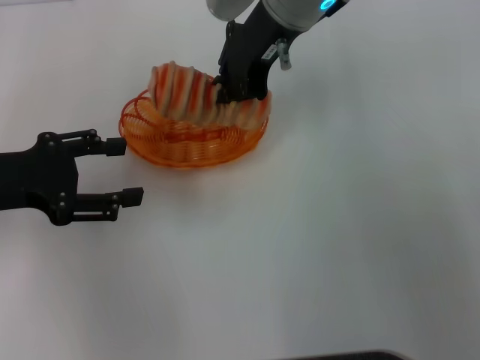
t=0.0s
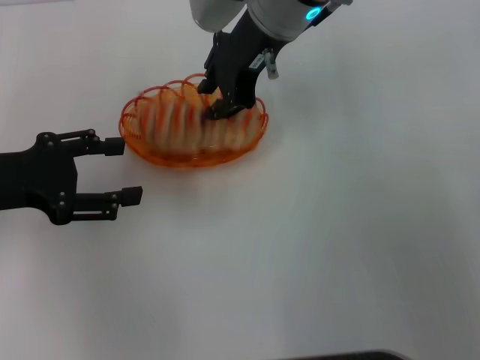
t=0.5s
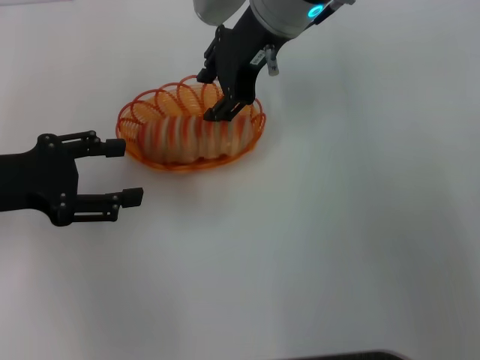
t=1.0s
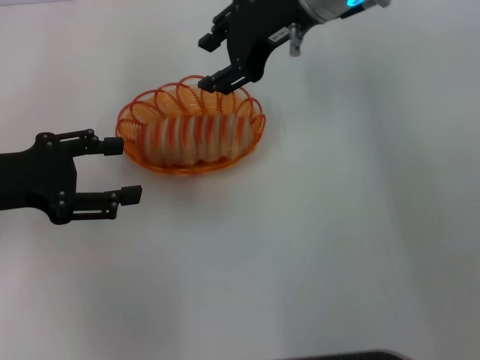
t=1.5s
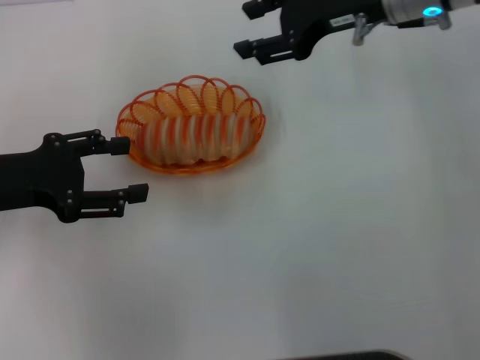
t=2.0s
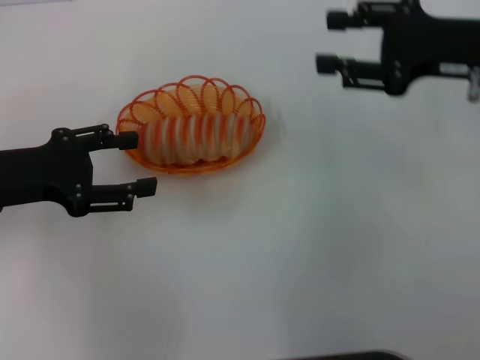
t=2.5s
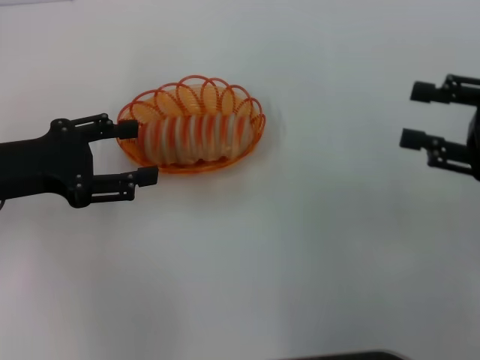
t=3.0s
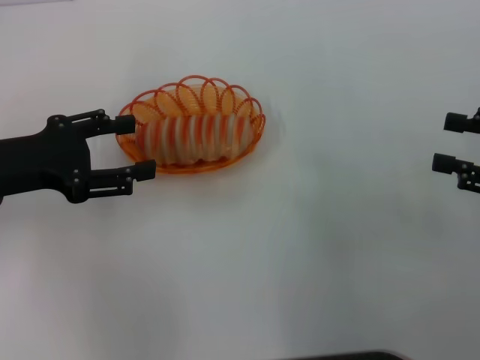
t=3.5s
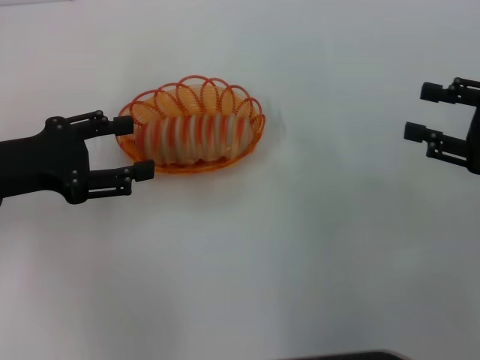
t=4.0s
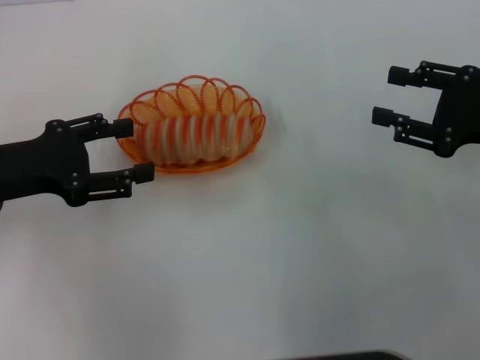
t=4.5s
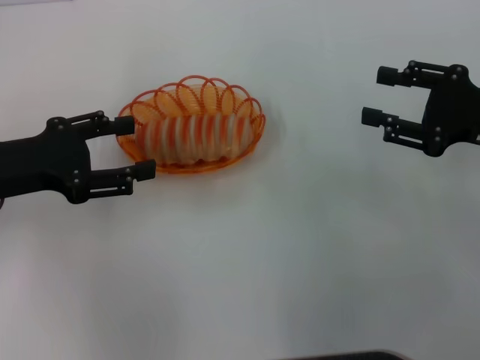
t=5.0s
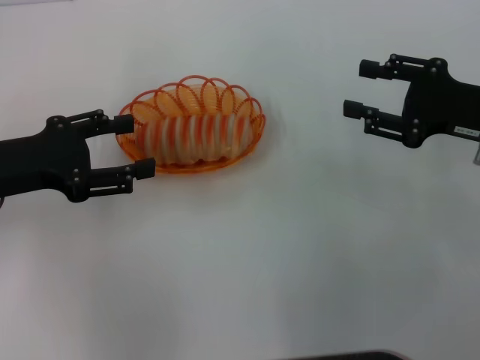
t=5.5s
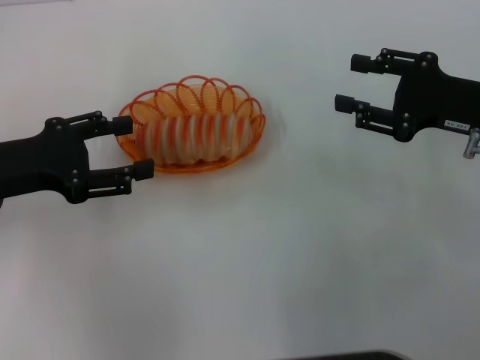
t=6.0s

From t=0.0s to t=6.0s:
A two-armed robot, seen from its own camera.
From t=0.0s to t=2.0s: The right gripper travels to the right by about 10 cm, and opens up.
From t=2.0s to t=4.0s: The right gripper shifts approximately 25 cm to the right, backward and downward.
From t=4.0s to t=6.0s: The right gripper goes about 5 cm to the left.

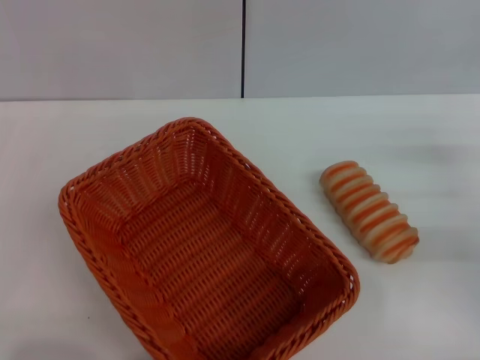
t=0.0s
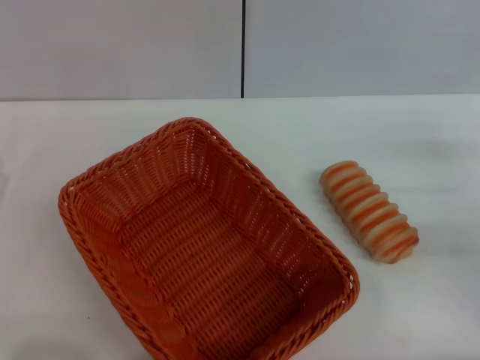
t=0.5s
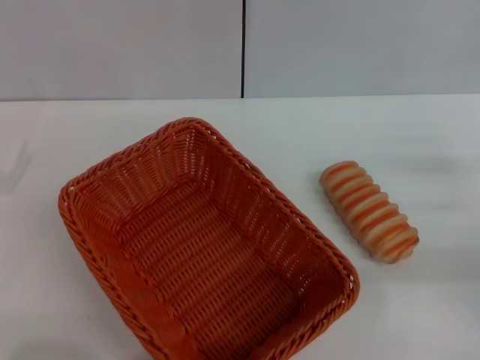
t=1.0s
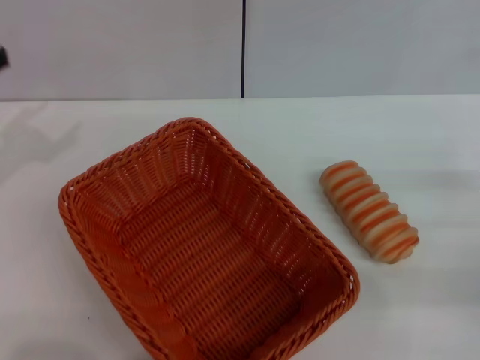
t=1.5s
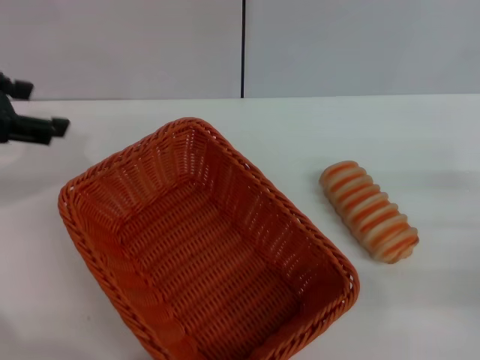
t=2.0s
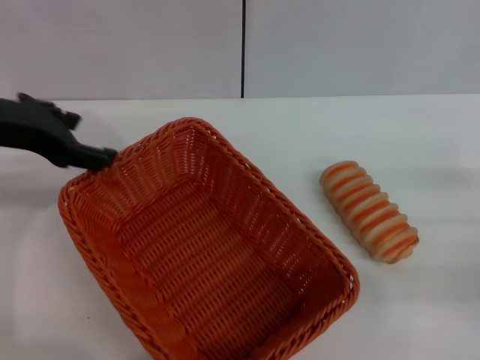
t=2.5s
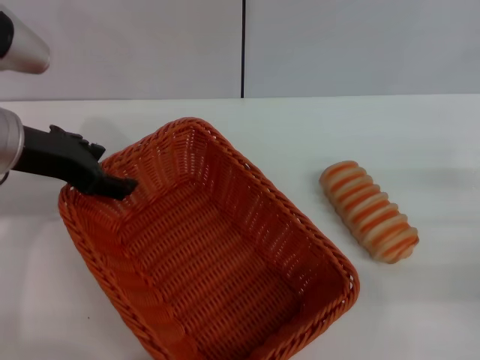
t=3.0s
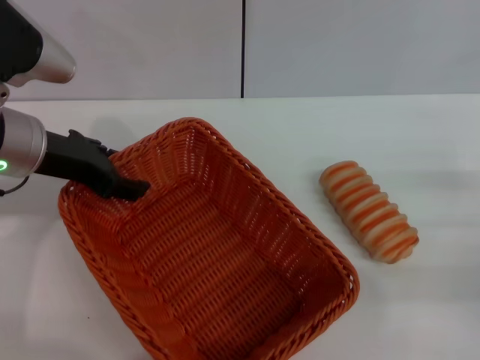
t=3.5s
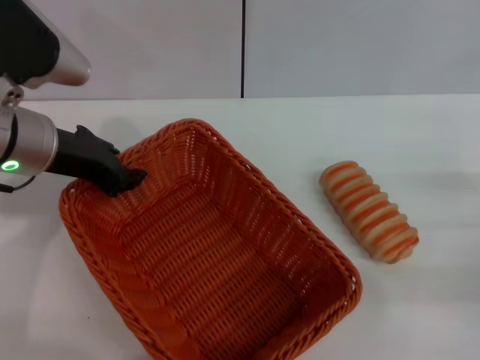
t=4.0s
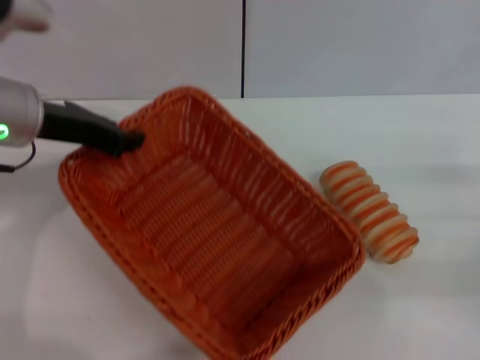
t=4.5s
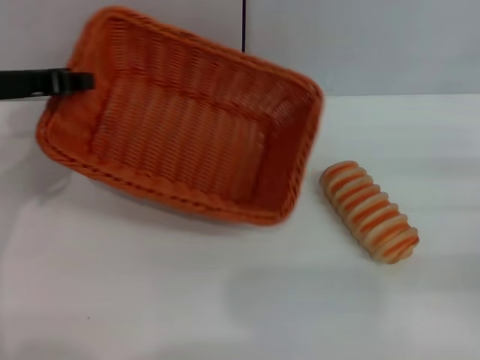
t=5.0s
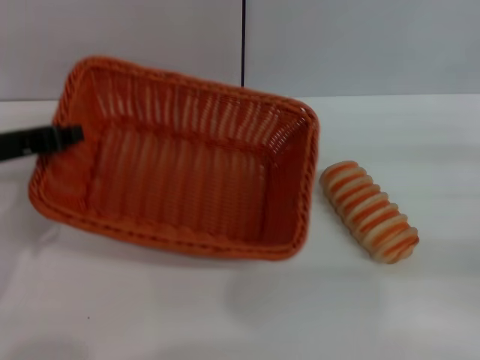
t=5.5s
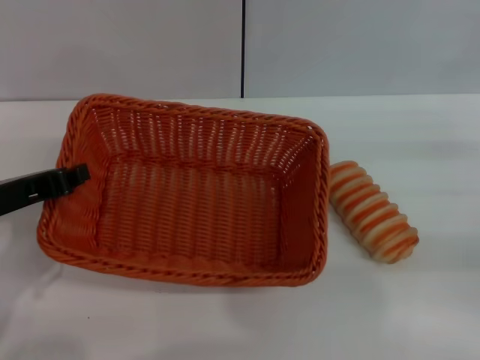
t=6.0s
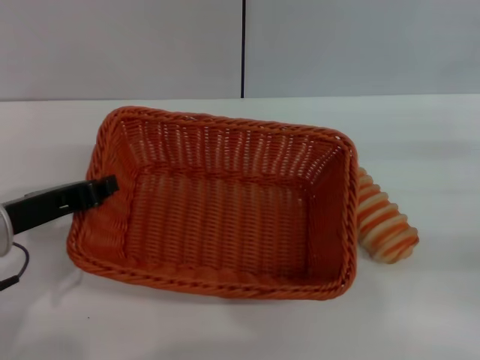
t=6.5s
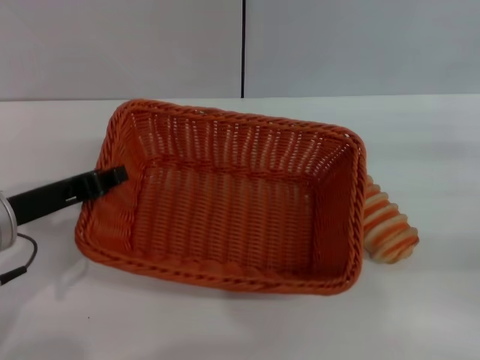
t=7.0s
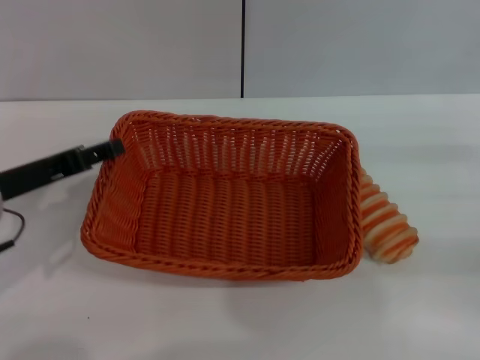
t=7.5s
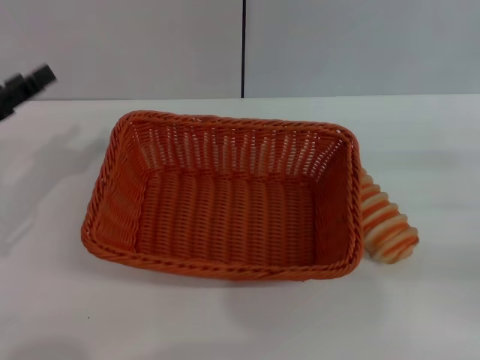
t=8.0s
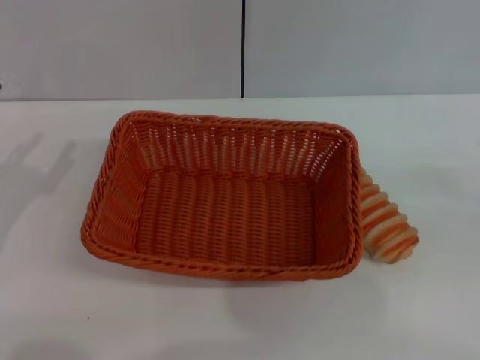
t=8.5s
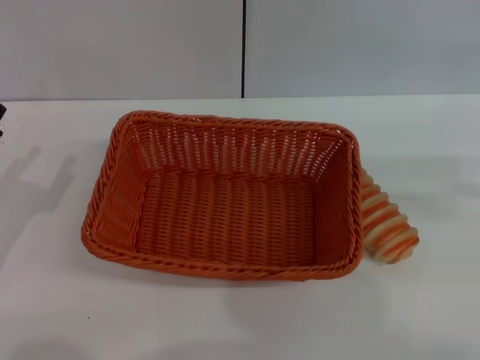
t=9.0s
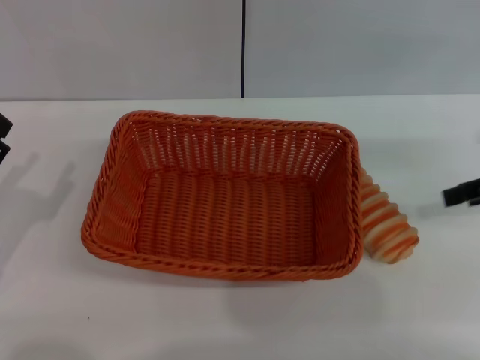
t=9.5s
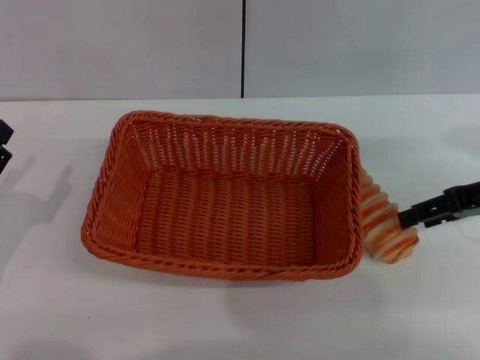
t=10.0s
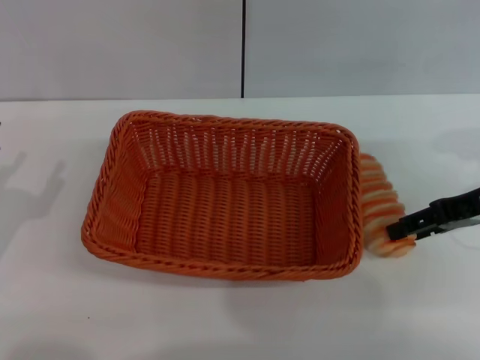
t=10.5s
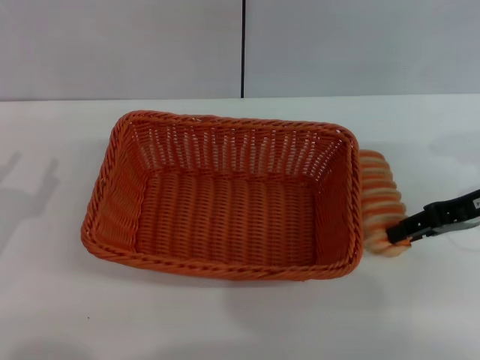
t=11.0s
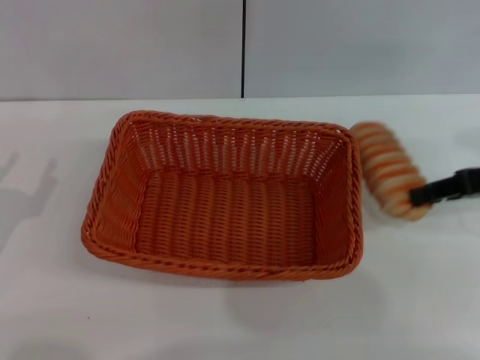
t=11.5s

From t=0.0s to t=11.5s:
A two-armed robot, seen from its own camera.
Step, from t=0.0s to t=4.5s: Pick up the light basket with the left gripper.
Step, from t=5.0s to t=7.5s: Place the light basket in the center of view with the left gripper.
From t=0.0s to t=2.0s: The left gripper shifts approximately 25 cm upward and forward.
From t=2.0s to t=4.0s: The left gripper moves to the right and downward, approximately 10 cm, and closes its fingers.
From t=4.0s to t=6.0s: The left gripper heads backward, covering about 10 cm, and closes up, while the right gripper shifts by about 5 cm.
From t=6.0s to t=7.5s: The left gripper opens its fingers.
From t=7.5s to t=9.5s: The right gripper shifts roughly 10 cm upward and forward, while the left gripper goes roughly 10 cm to the left, downward and backward.
From t=9.5s to t=11.5s: The right gripper closes its fingers.

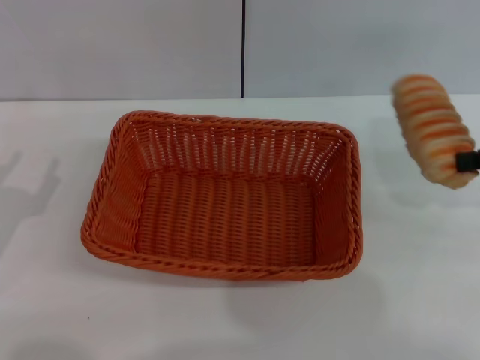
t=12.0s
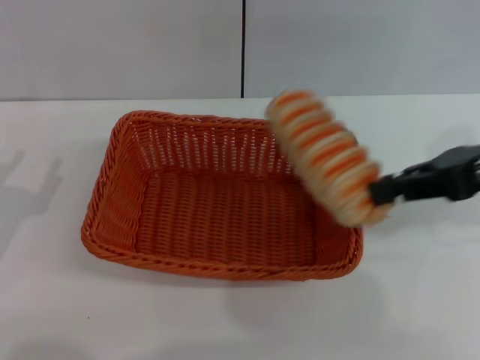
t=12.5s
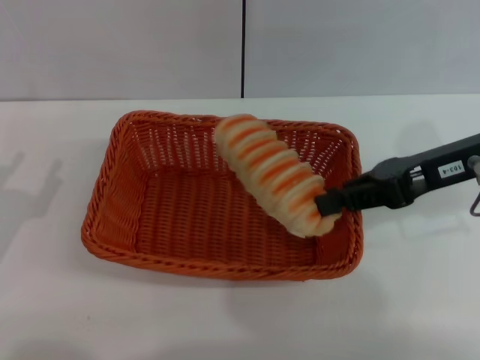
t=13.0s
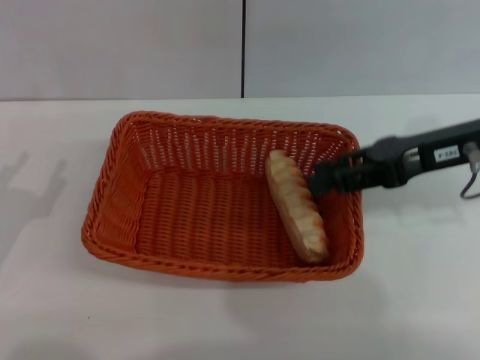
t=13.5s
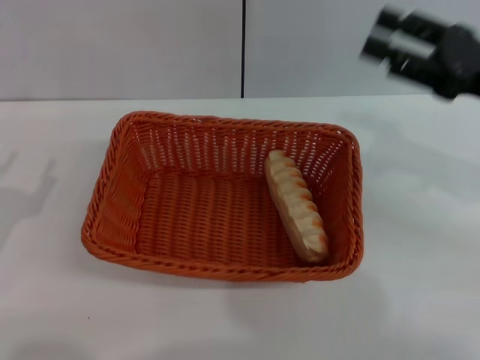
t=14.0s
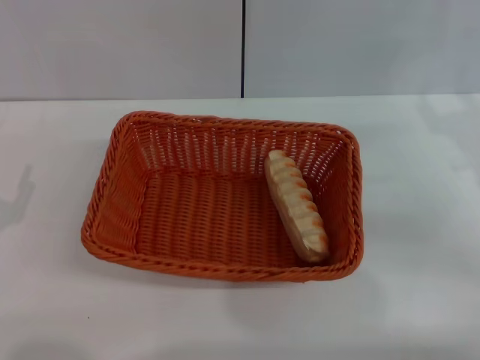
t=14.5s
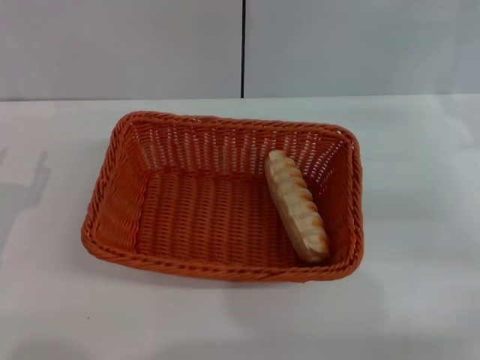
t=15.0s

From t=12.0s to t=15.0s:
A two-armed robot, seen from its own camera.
Step, from t=12.0s to t=13.5s: Place the long bread into the light basket with the right gripper.
From t=12.0s to t=13.5s: The right gripper is displaced to the left by about 10 cm.
From t=13.5s to t=15.0s: The right gripper shifts about 10 cm downward and to the right, and opens up.
